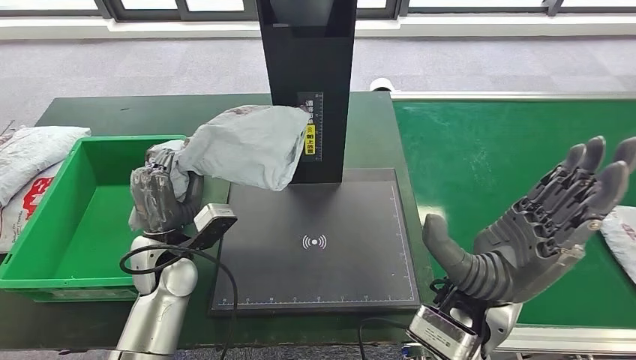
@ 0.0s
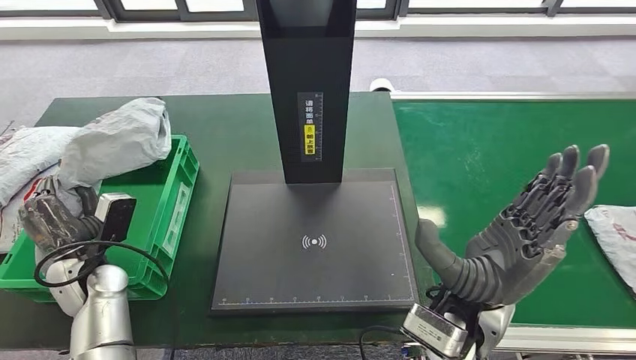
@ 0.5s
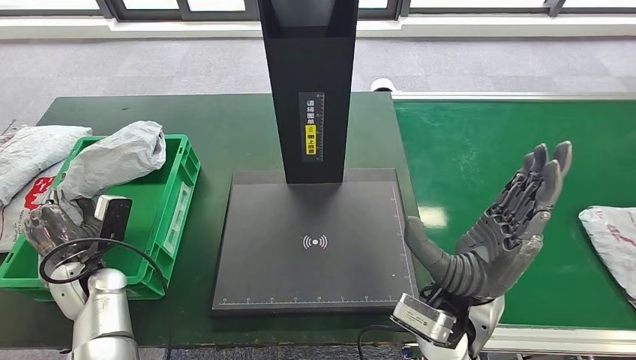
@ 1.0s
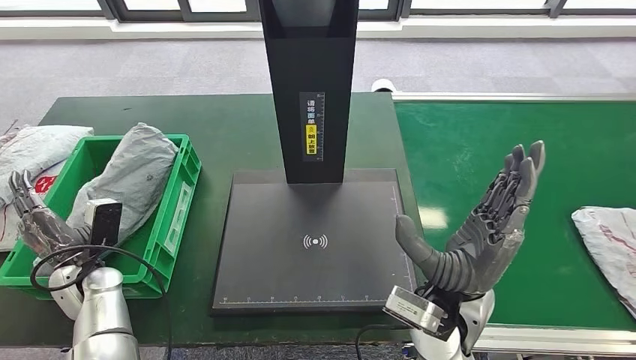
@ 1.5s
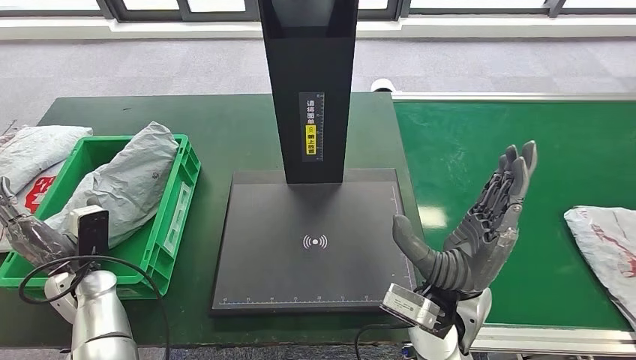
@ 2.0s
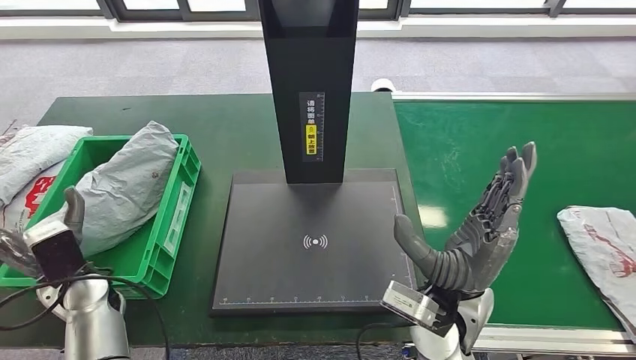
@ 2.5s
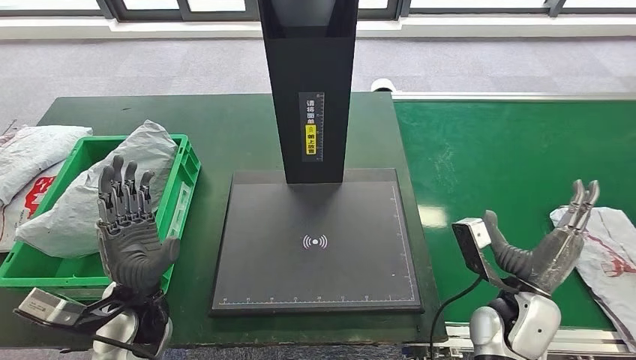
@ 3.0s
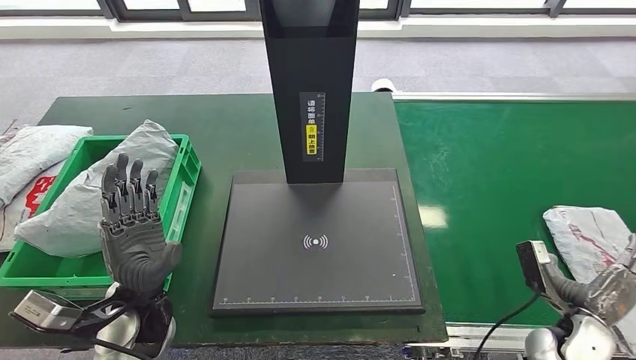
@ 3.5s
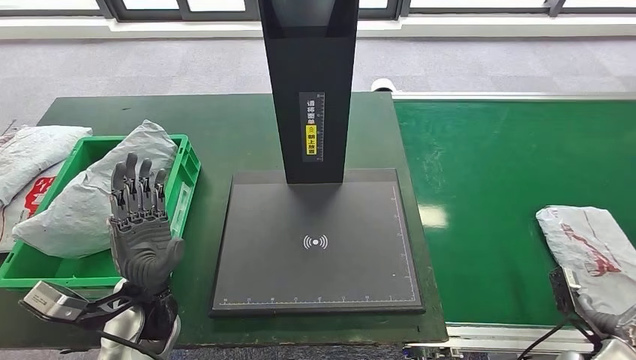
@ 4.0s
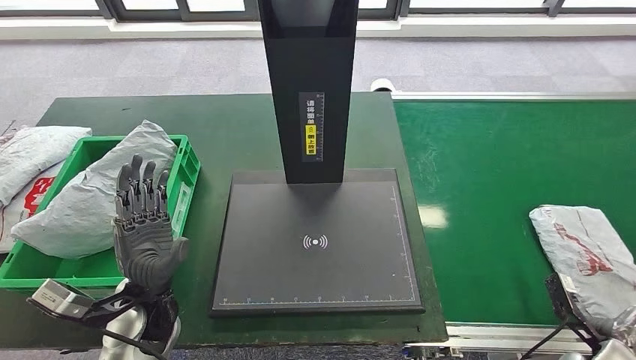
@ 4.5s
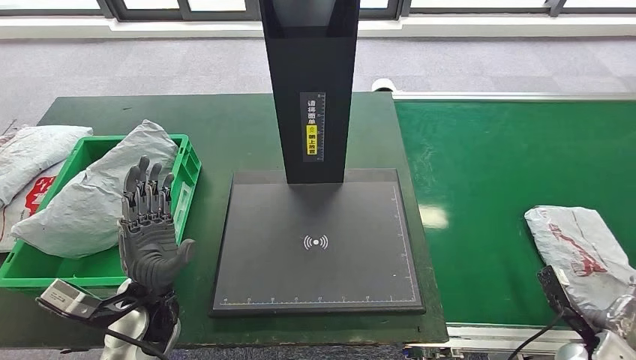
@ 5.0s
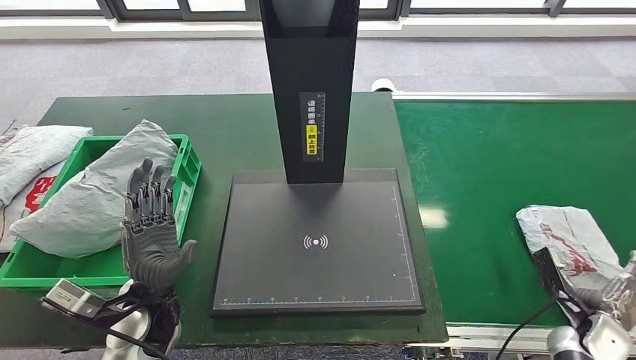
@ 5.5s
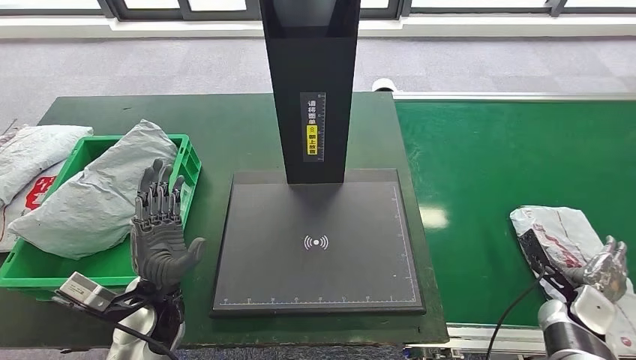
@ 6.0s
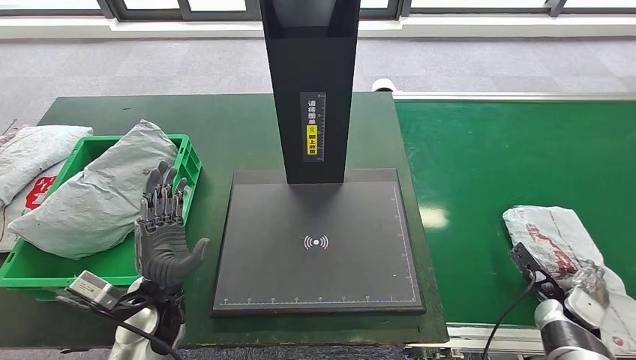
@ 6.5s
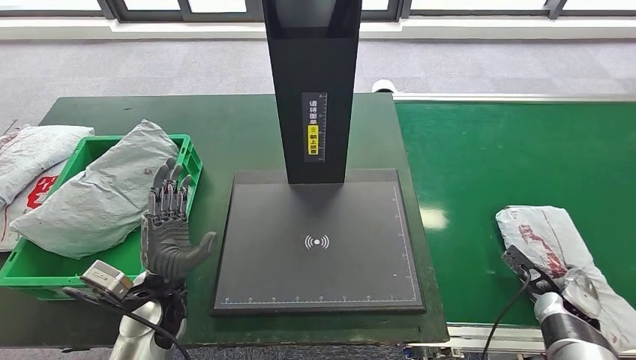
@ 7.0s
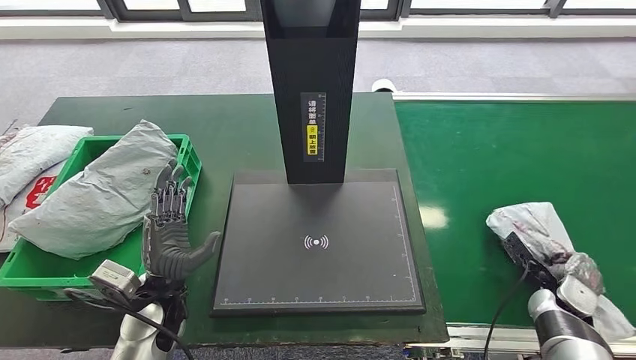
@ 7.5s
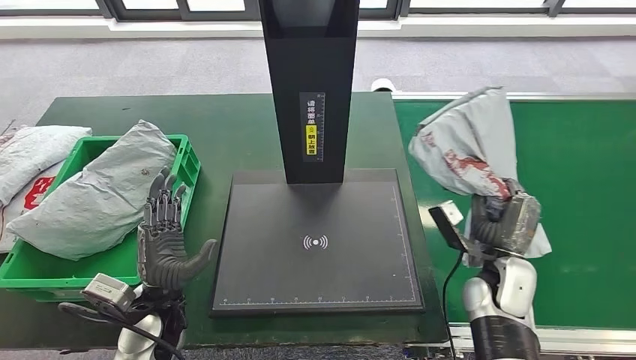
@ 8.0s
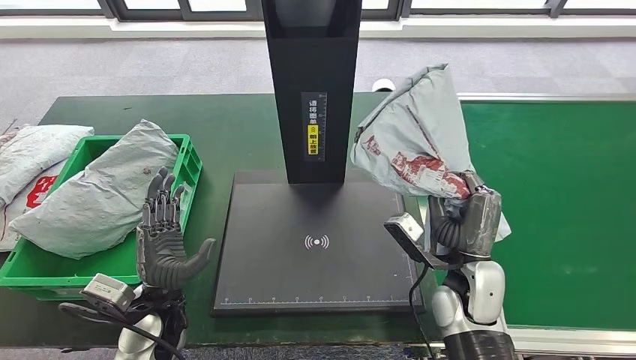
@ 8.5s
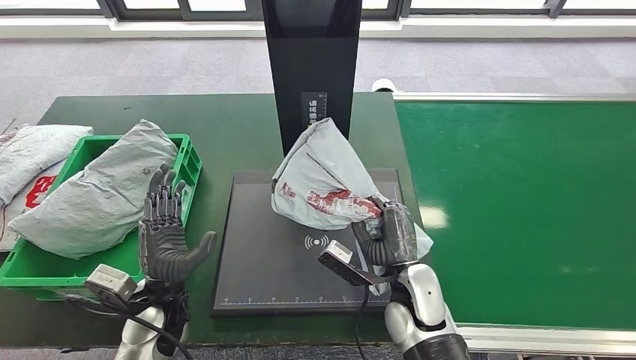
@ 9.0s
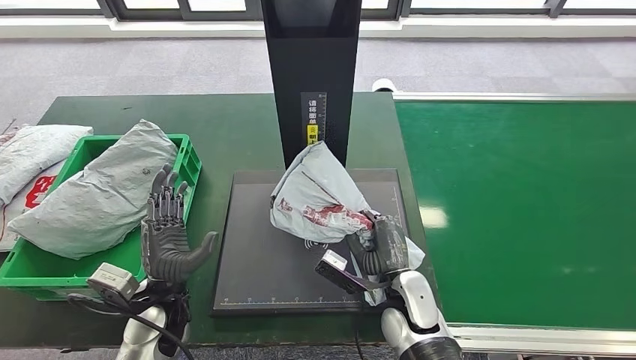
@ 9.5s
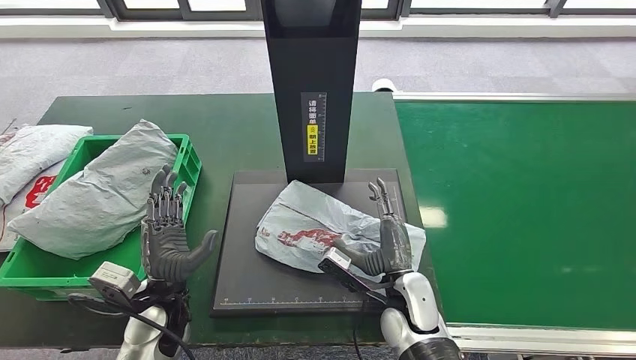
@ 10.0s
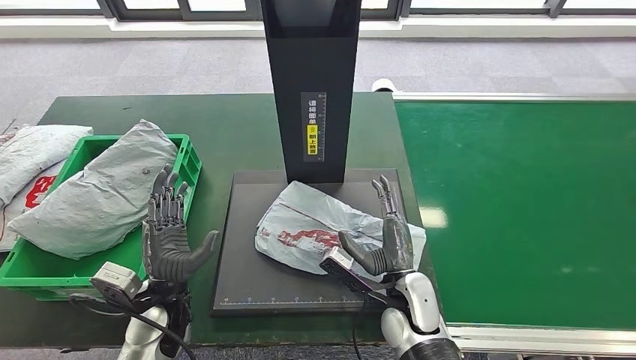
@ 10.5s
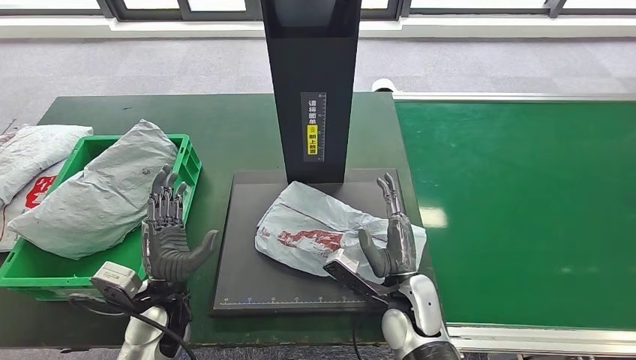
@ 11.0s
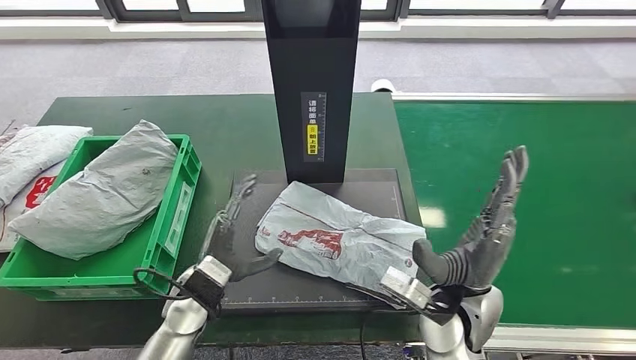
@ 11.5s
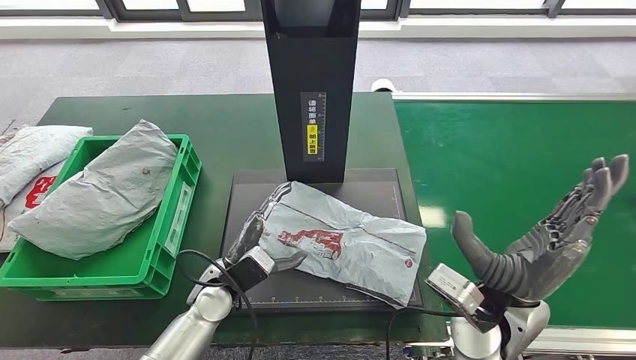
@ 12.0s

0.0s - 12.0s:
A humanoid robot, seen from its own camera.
Step, 0.0s - 1.5s: Put the parcel inside the courier box.
Step, 6.0s - 8.0s: Pick up the parcel from the conveyor belt.
Step, 8.5s - 10.5s: Place the parcel onto the inbound machine.
2.0s - 4.0s: The right hand heads to the right and downward, covering about 35 cm; the left hand shifts some 15 cm to the right and upward.
4.0s - 6.0s: The right hand goes about 10 cm forward.
6.0s - 8.0s: The right hand travels to the left and upward by approximately 15 cm.
10.0s - 12.0s: The right hand shifts about 15 cm upward and to the right. Meanwhile the left hand travels to the right by roughly 10 cm.

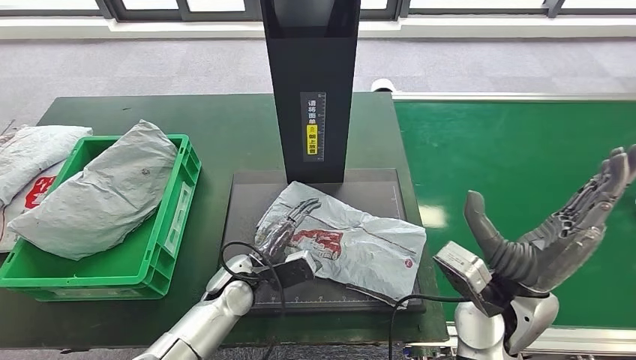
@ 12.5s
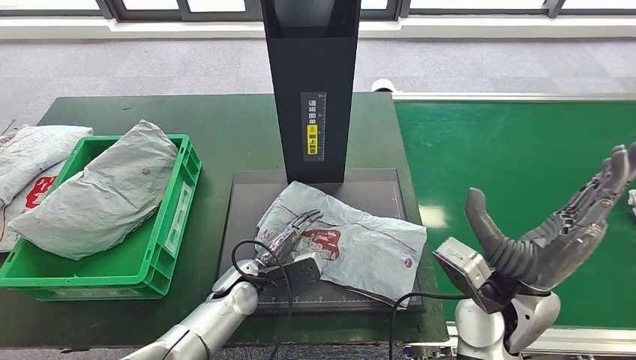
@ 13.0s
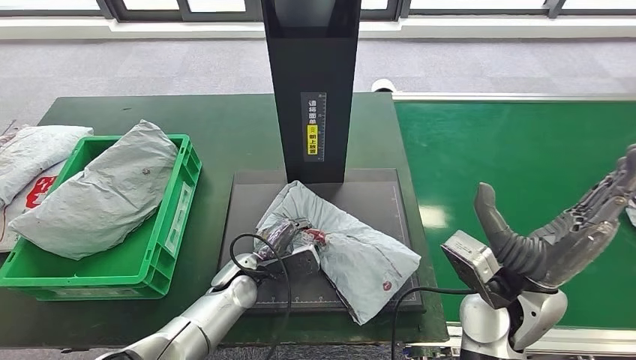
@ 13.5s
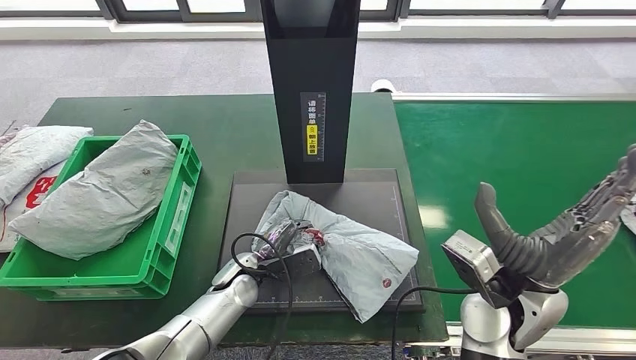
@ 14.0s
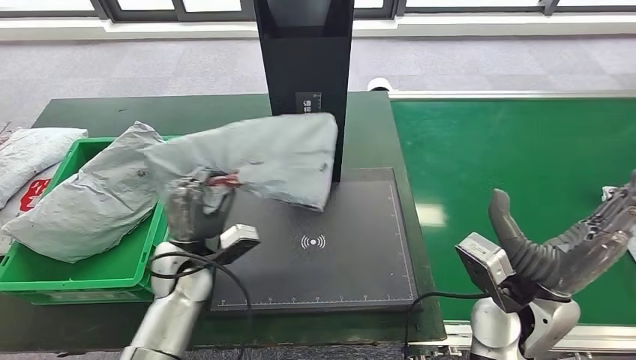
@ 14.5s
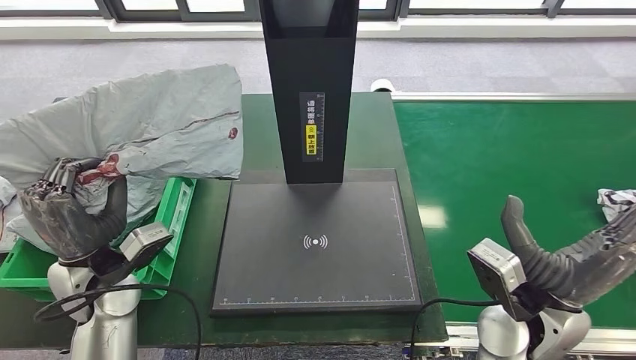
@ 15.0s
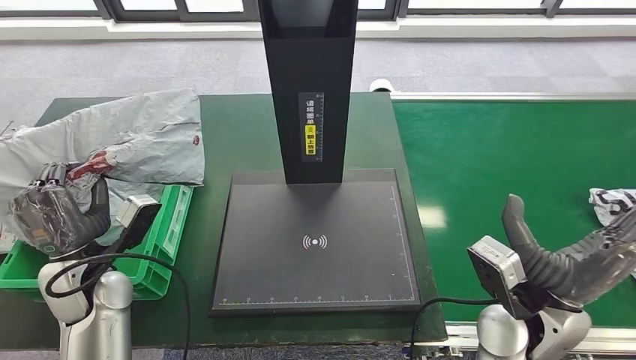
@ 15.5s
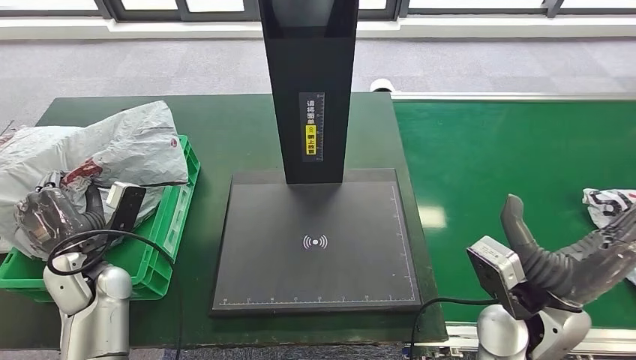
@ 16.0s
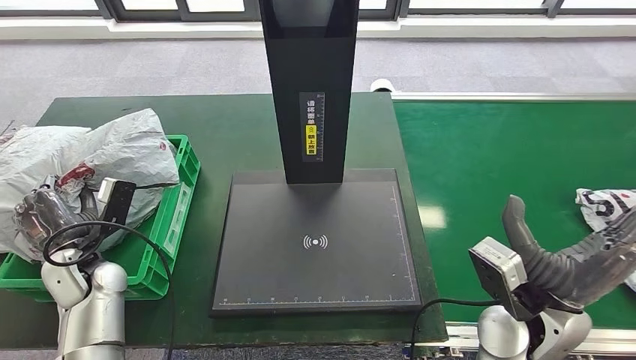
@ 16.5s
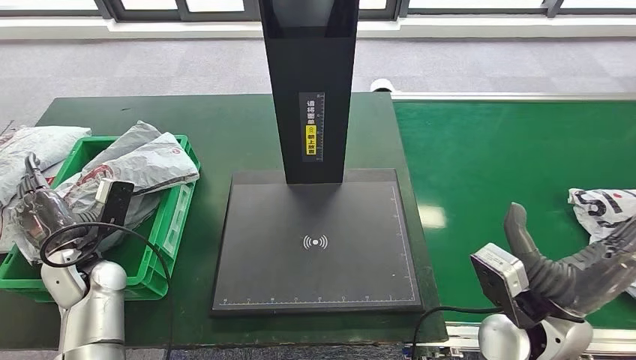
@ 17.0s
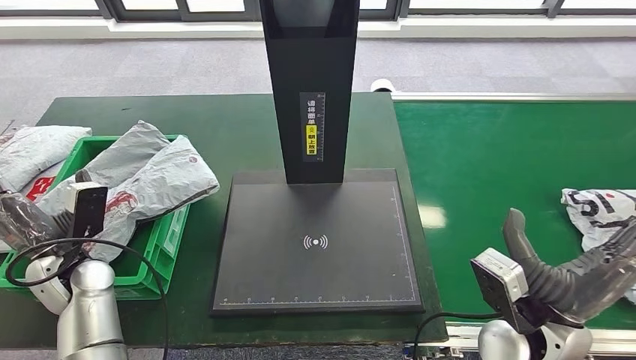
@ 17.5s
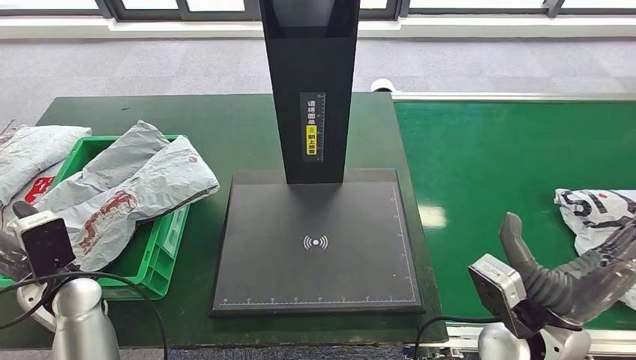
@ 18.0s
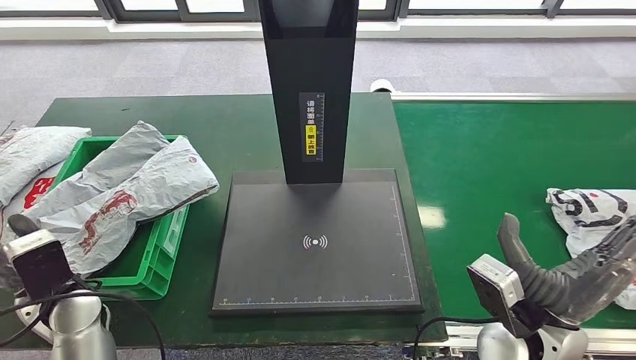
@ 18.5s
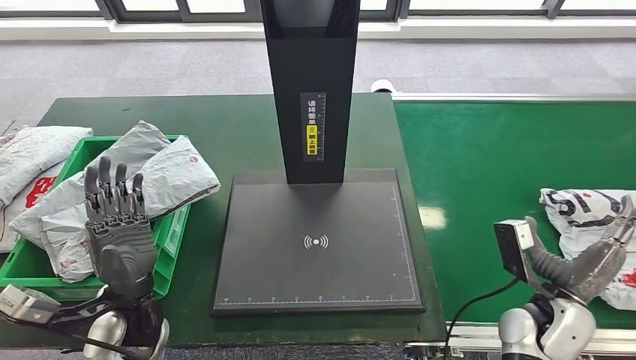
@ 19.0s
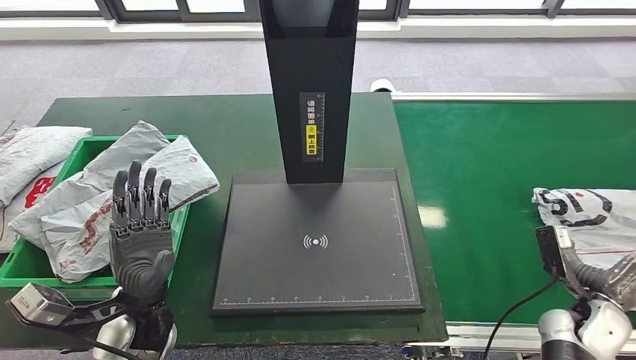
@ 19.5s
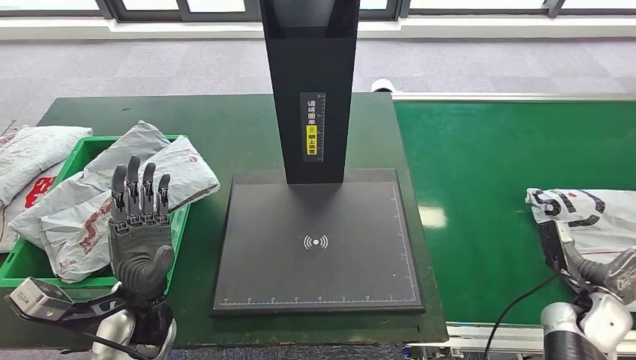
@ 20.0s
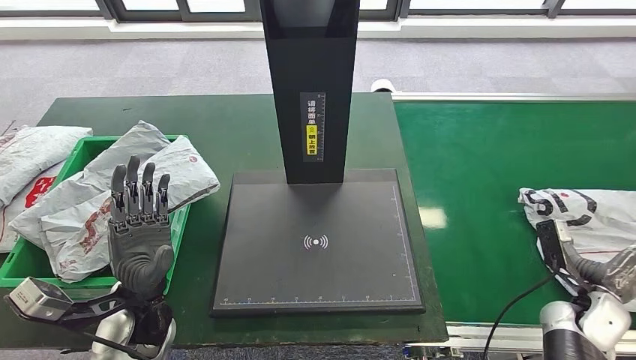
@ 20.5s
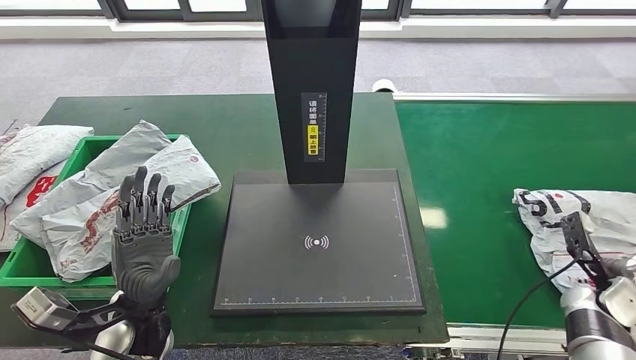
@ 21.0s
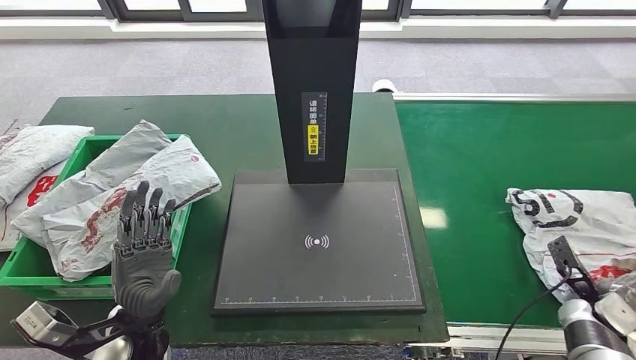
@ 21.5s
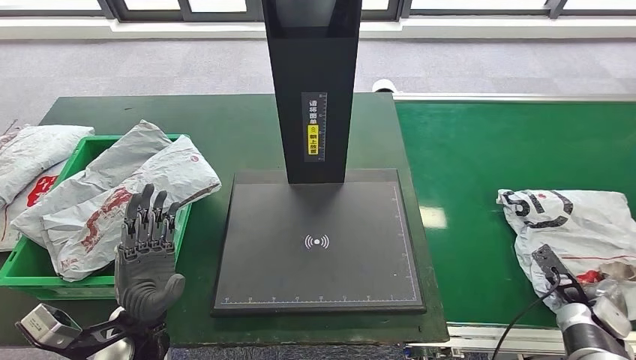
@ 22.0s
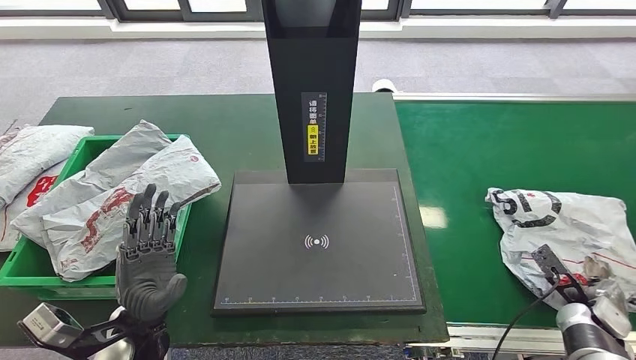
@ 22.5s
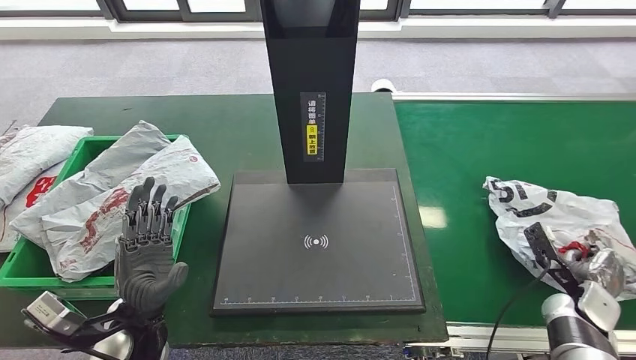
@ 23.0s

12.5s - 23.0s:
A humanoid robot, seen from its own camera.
Step, 13.0s - 14.5s: Pick up the parcel from the inbound machine.
Step, 15.0s - 18.0s: Place the parcel into the delivery box.
19.0s - 21.0s: The right hand moves to the right, about 15 cm.
